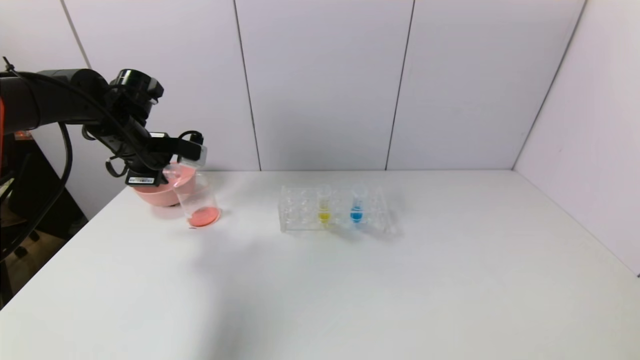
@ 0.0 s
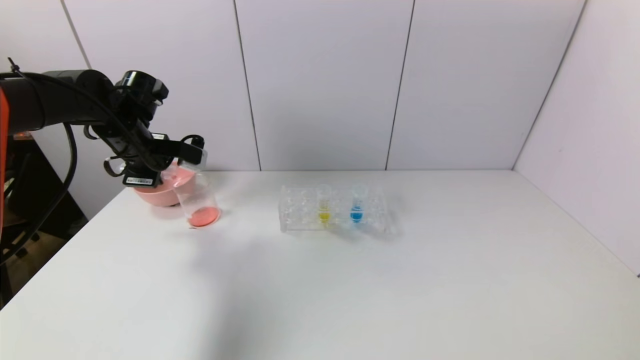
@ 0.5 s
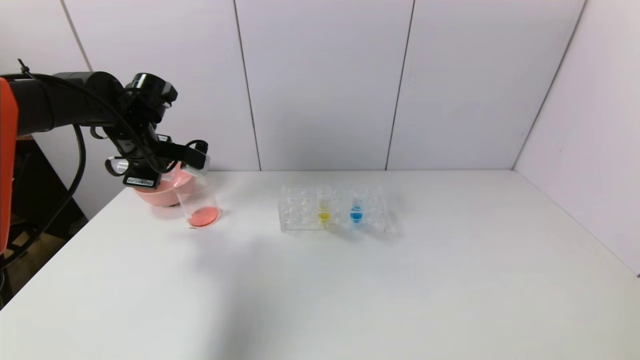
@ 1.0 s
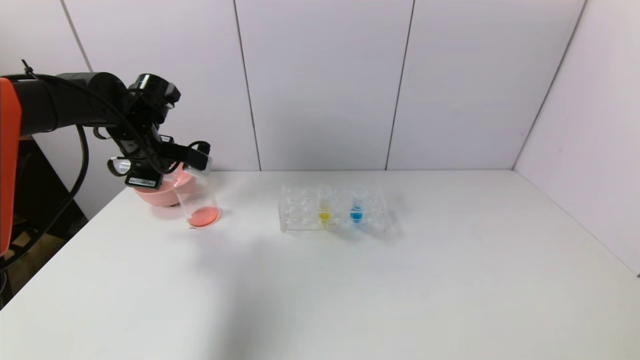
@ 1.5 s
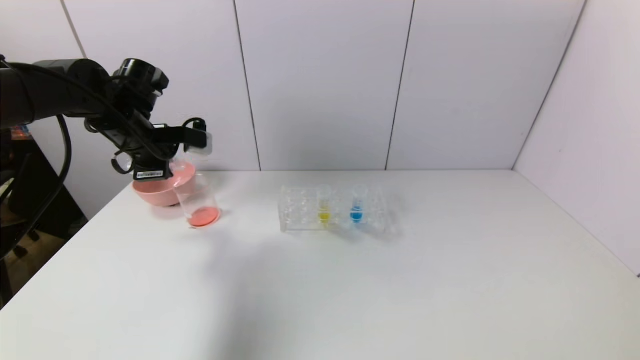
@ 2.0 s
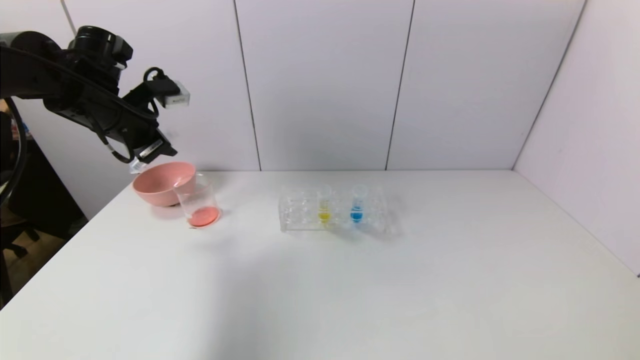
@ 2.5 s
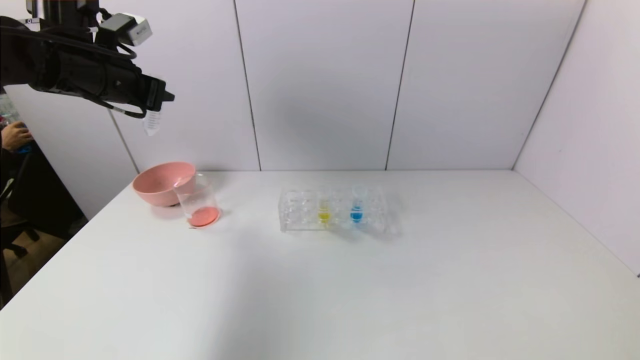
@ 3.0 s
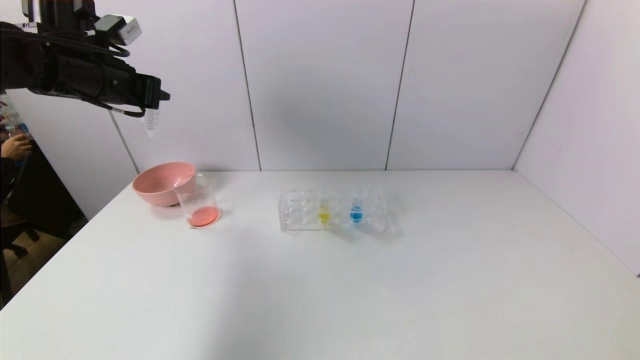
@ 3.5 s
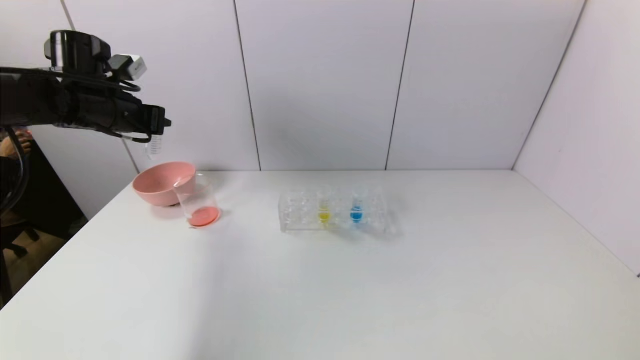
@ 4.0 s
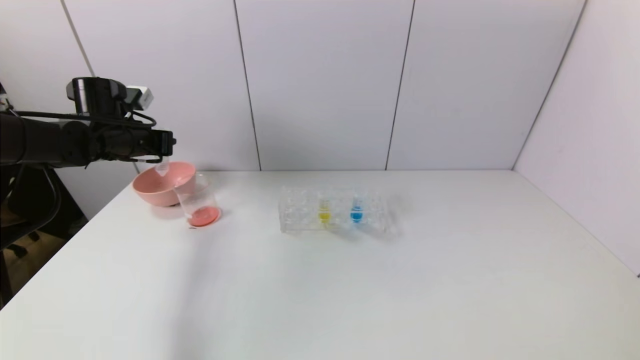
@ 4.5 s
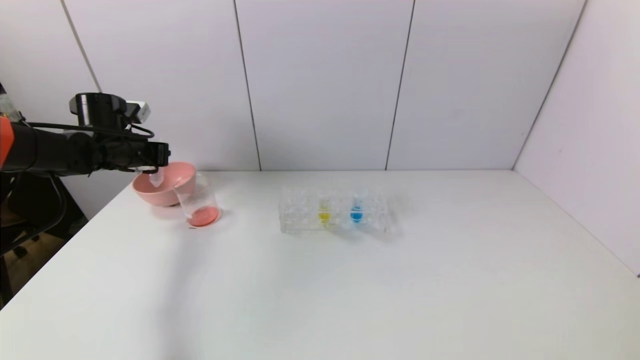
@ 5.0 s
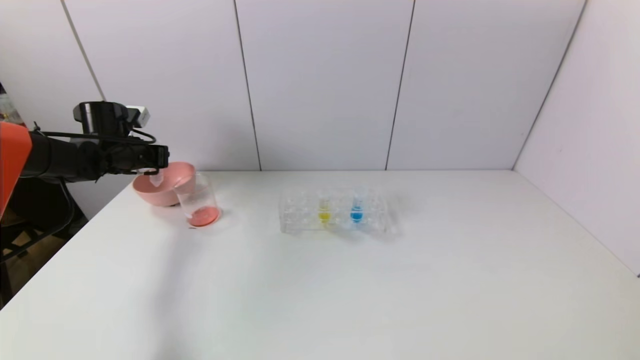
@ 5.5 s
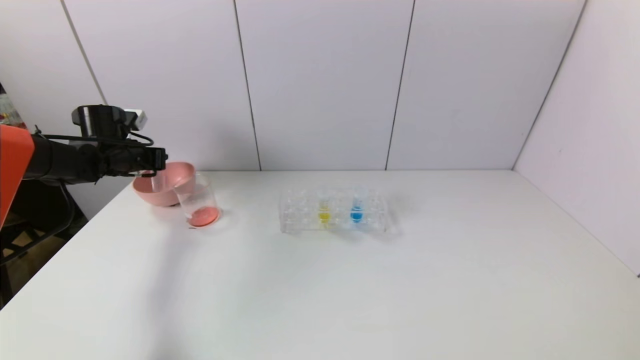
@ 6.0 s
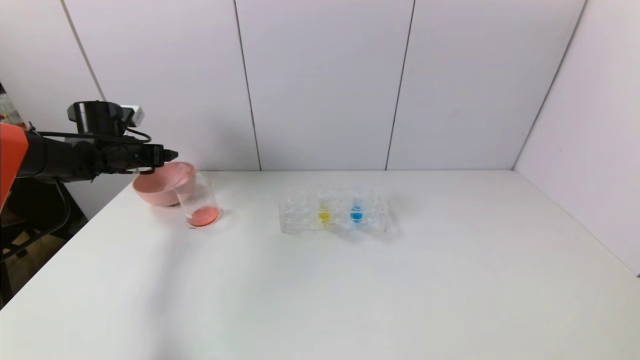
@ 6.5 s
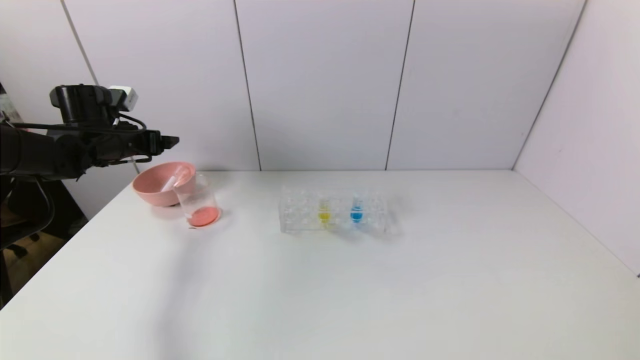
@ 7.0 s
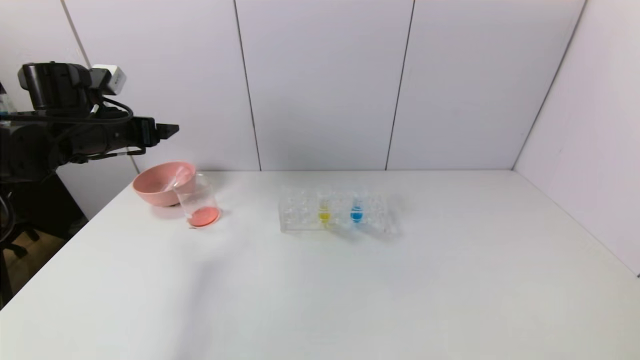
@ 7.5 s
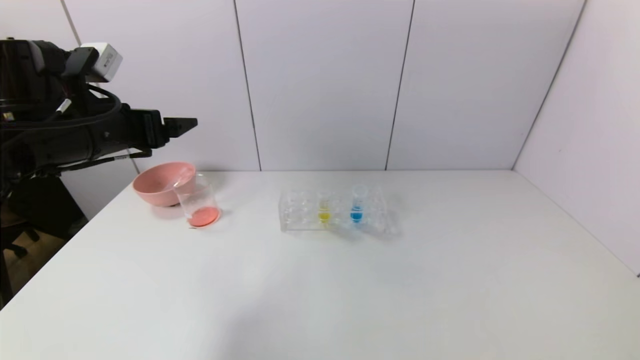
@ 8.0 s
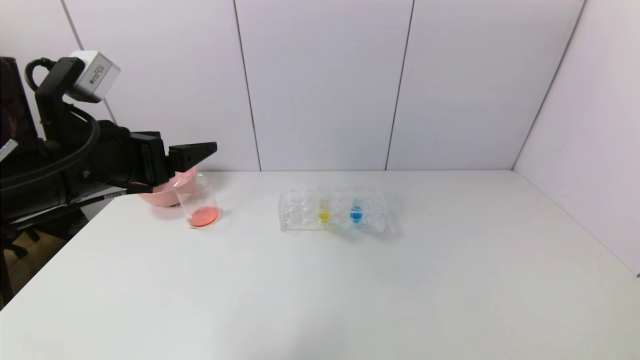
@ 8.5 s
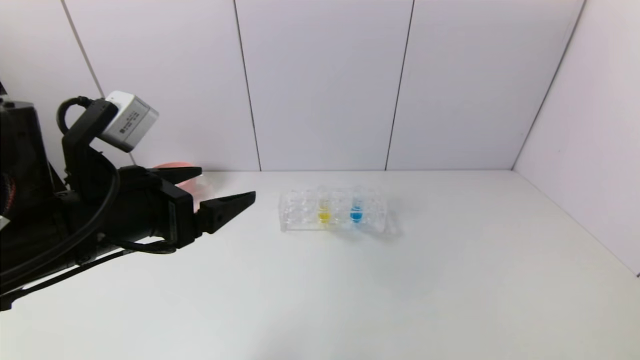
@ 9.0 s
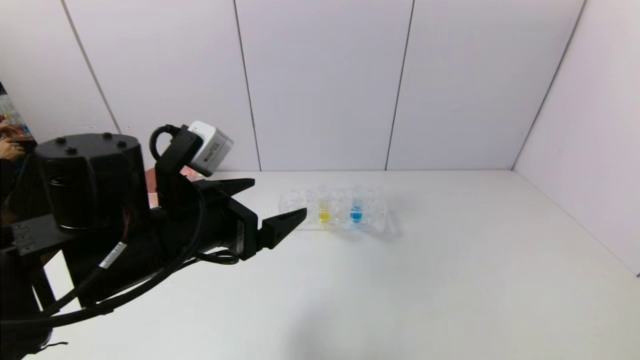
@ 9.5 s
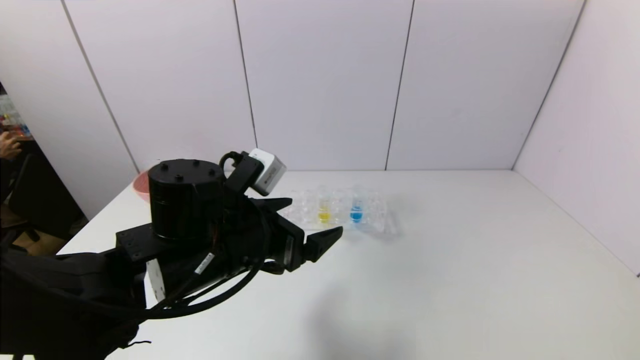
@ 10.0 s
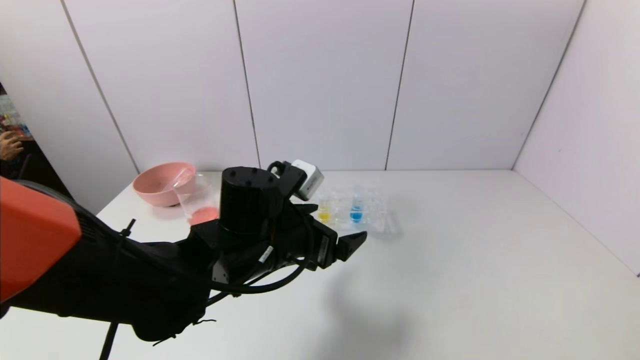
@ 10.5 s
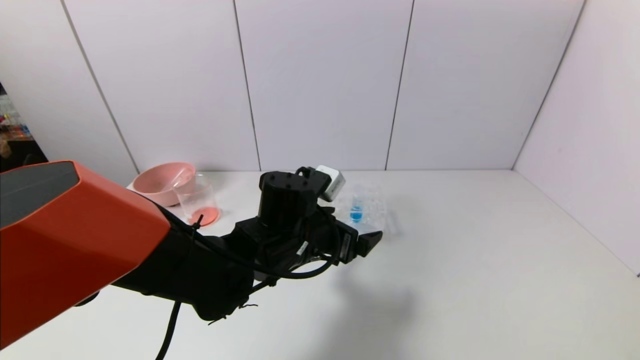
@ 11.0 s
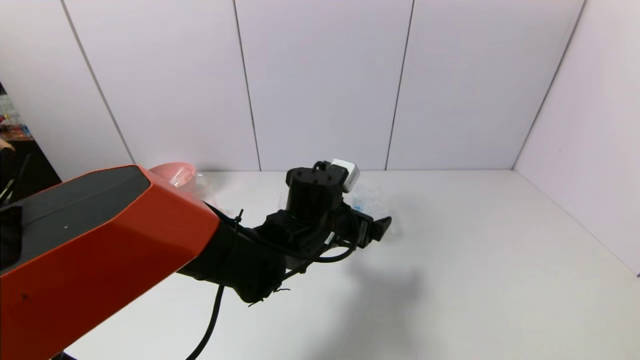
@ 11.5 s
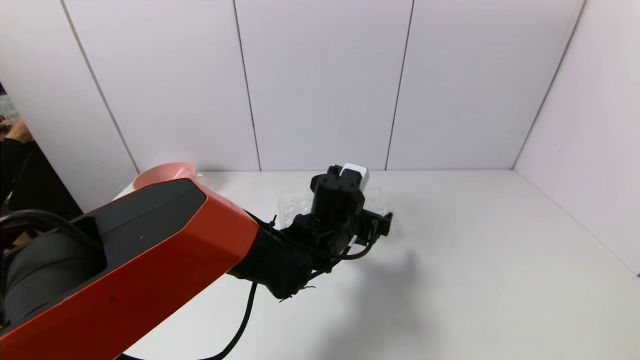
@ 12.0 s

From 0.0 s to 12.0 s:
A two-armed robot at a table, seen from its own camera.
Task of the whole recording: pick up the test tube with red pigment and the test tube with blue pigment by grippers and pour them into the container.
Step, from 0.0 s to 3.0 s: Pour the red reagent into the graduated cylinder with the left gripper.
Step, from 3.5 s to 6.5 s: Place the test tube into the bowl with the left gripper.
From 0.0 s to 2.0 s: The grippers stay close to where they were, moving slightly.
From 2.0 s to 4.0 s: The left gripper travels upward and back again, some 10 cm each way.
From 4.0 s to 6.0 s: The left gripper travels downward, forward and to the left by roughly 15 cm.
From 6.0 s to 8.0 s: The left gripper is displaced backward, to the right and upward by some 25 cm, and opens up.
From 8.0 s to 10.0 s: The left gripper is displaced to the right and downward by approximately 20 cm.
From 10.0 s to 12.0 s: The left gripper travels to the right, forward and downward by roughly 20 cm.

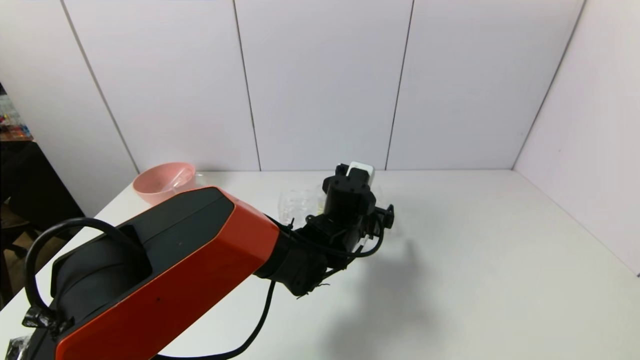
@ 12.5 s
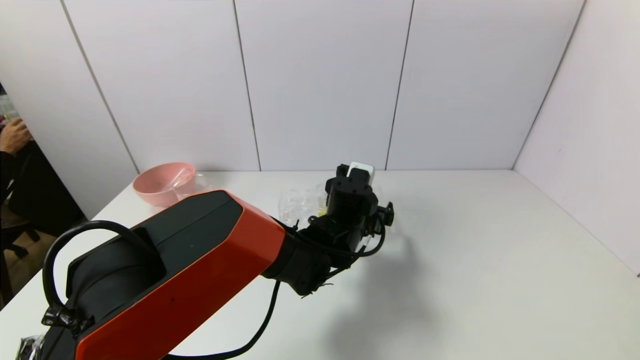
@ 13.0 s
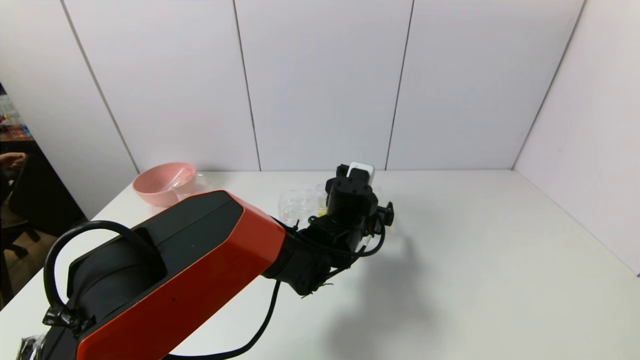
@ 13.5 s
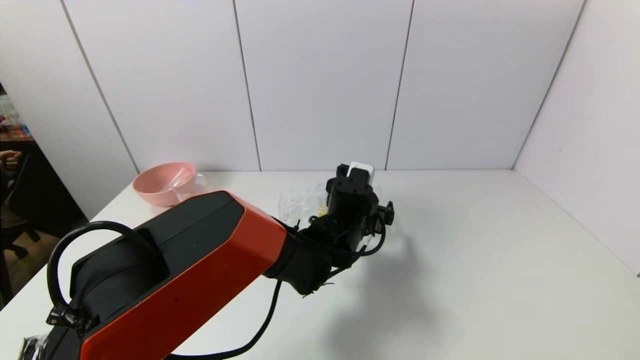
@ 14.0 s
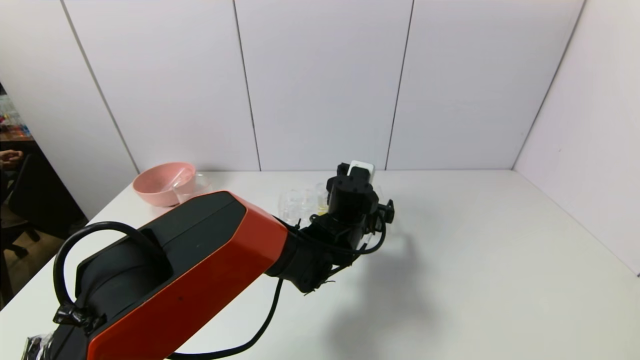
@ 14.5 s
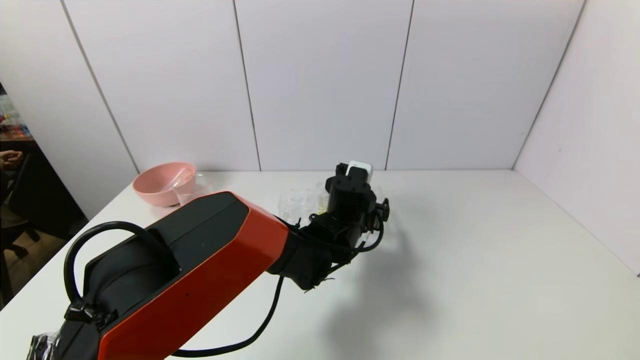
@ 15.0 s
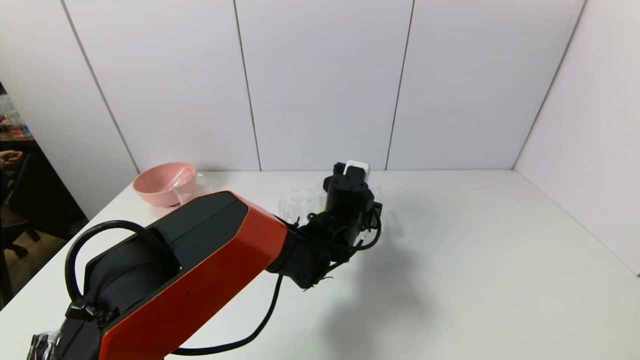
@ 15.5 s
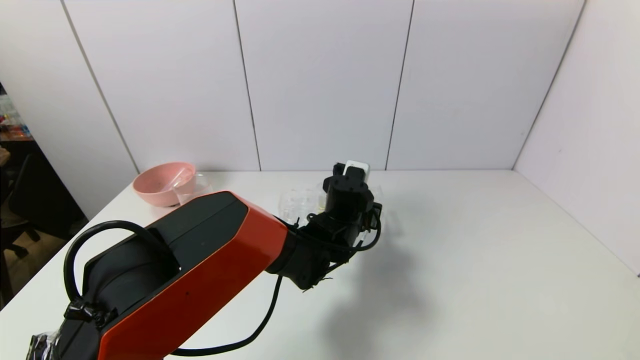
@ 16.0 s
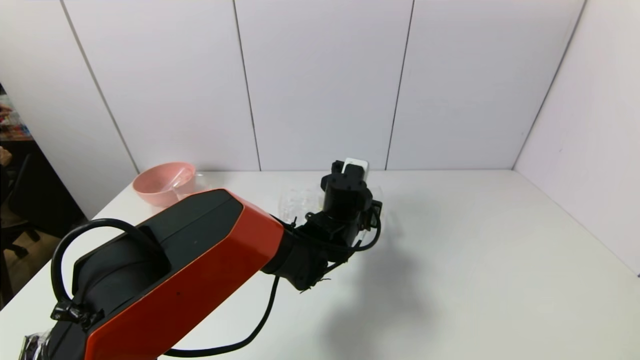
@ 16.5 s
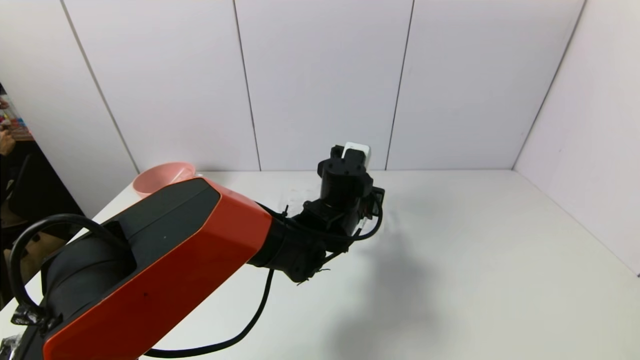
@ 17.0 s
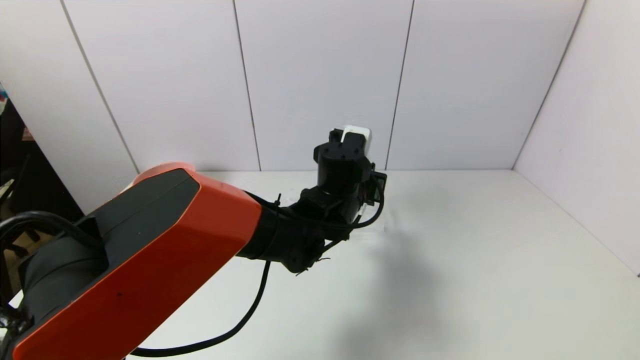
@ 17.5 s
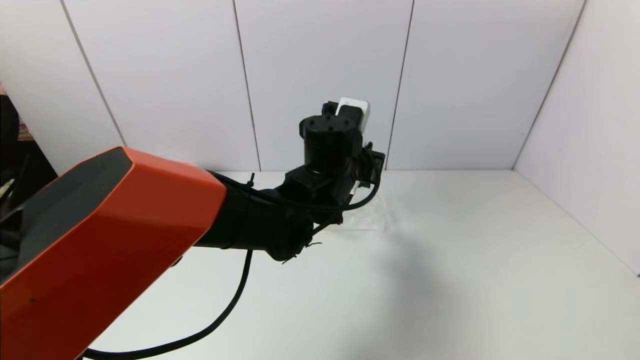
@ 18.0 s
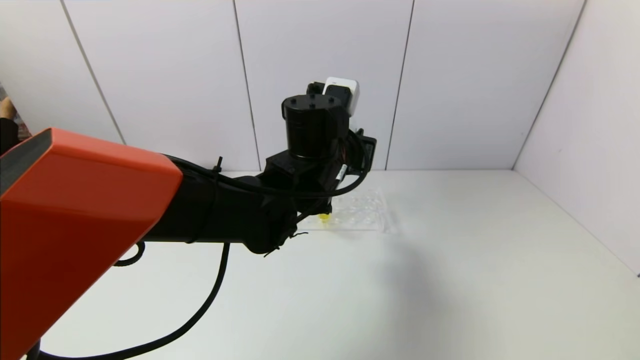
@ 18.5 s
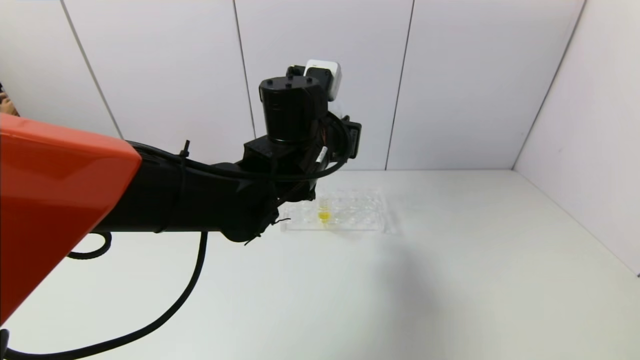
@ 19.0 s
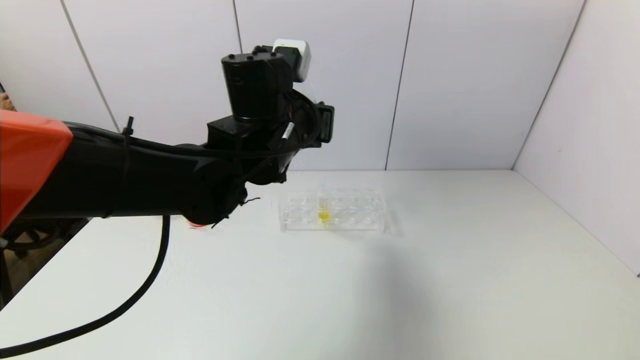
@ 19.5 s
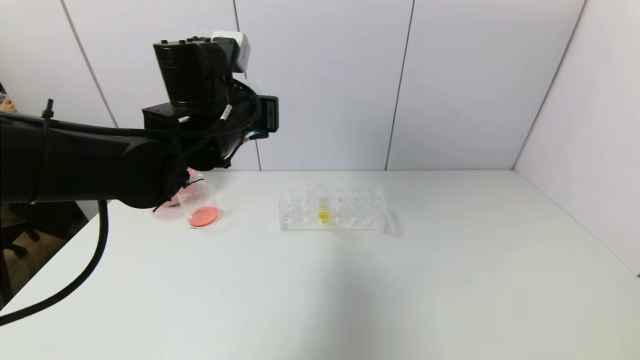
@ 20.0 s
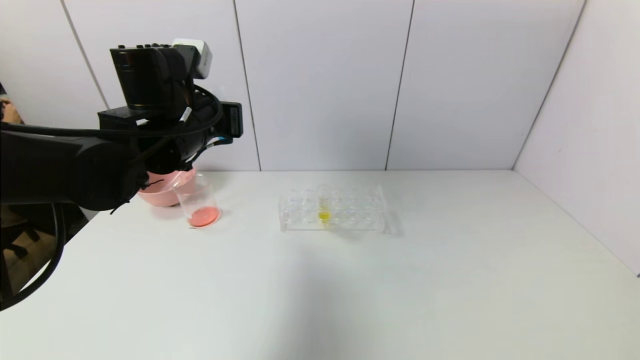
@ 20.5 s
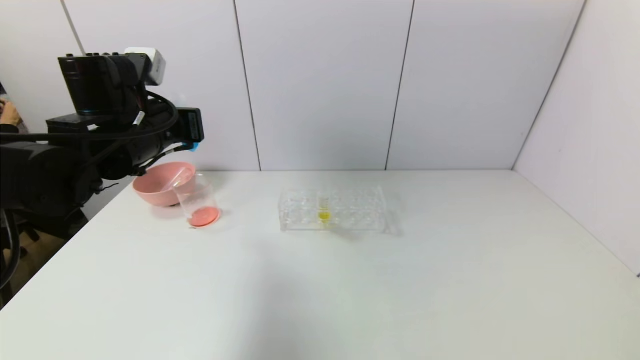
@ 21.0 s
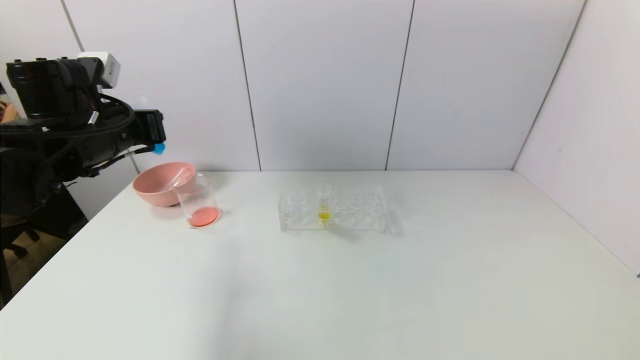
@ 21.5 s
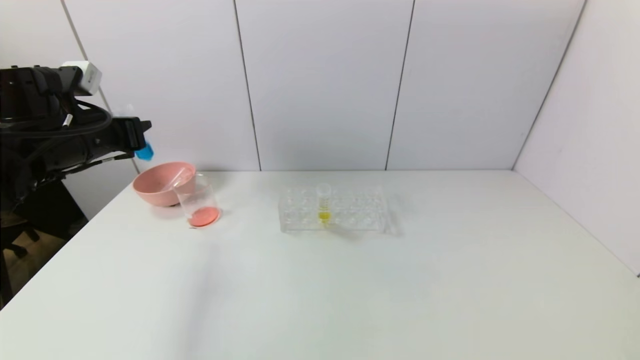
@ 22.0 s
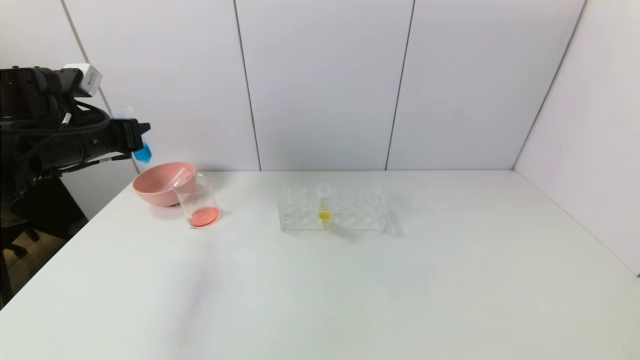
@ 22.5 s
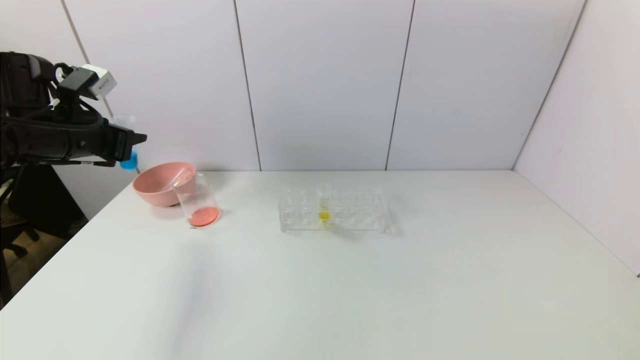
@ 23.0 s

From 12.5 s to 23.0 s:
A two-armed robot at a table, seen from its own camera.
Task of the whole recording: pick up the test tube with red pigment and the test tube with blue pigment by grippers and pour them into the container.
Step, from 12.5 s to 15.5 s: Grasp the blue reagent with the left gripper.
From 12.5 s to 14.5 s: Both grippers stay about where they are.
From 14.5 s to 16.5 s: The left gripper closes its fingers.
From 16.5 s to 19.0 s: The left gripper travels upward and to the left by roughly 15 cm.
From 19.0 s to 21.0 s: The left gripper shifts roughly 20 cm to the left.
From 21.0 s to 23.0 s: The left gripper moves to the left, about 10 cm.
